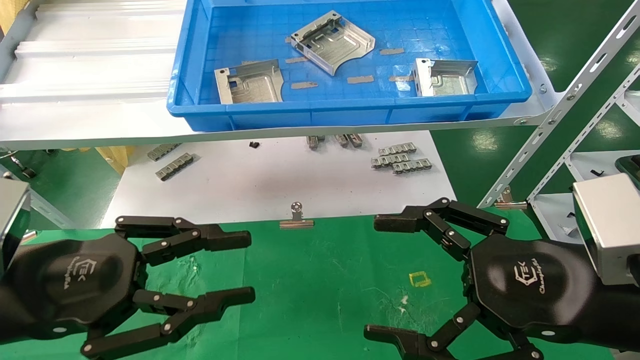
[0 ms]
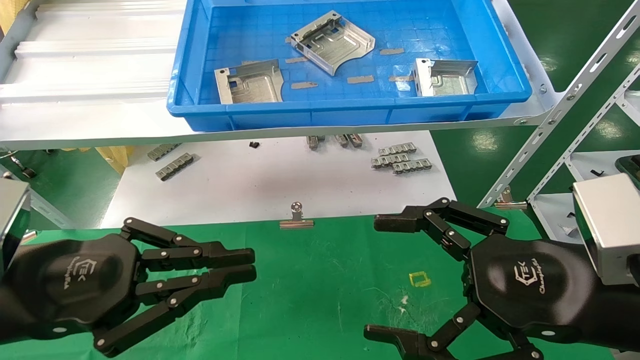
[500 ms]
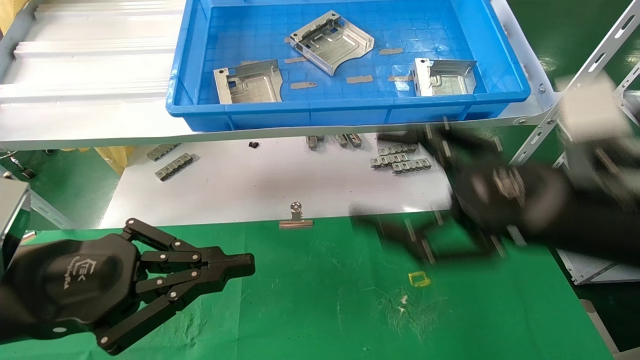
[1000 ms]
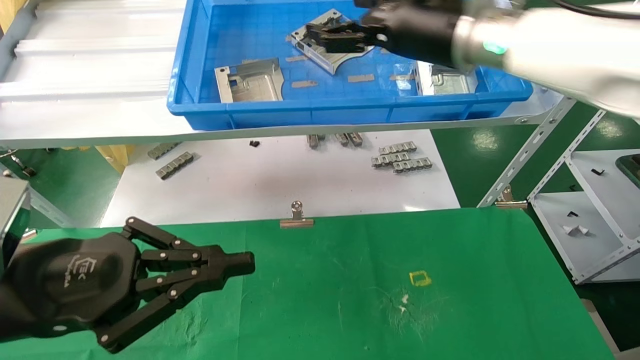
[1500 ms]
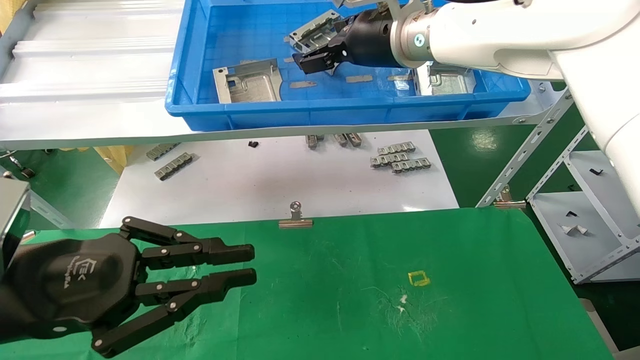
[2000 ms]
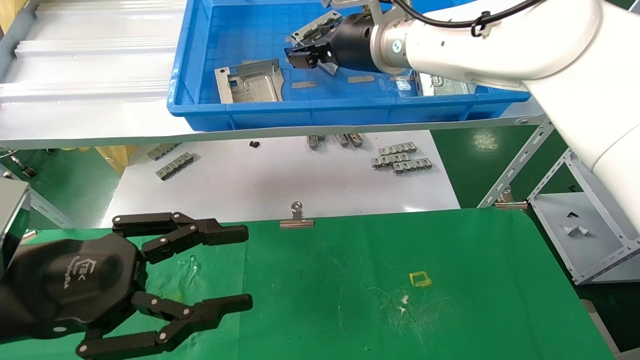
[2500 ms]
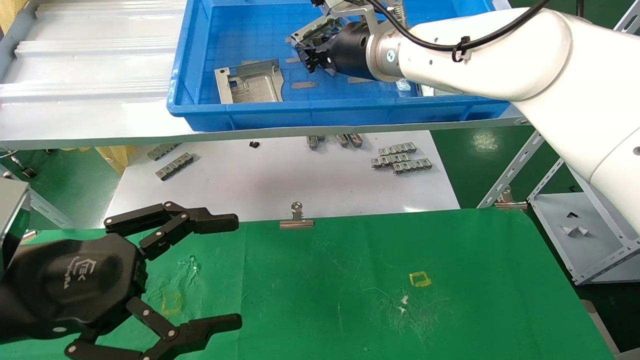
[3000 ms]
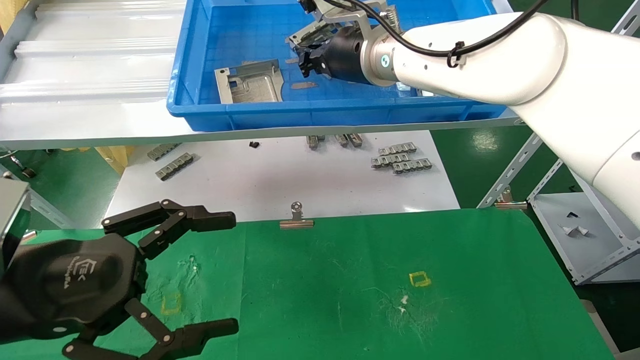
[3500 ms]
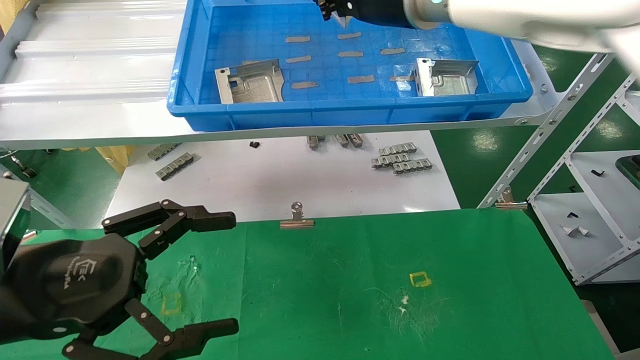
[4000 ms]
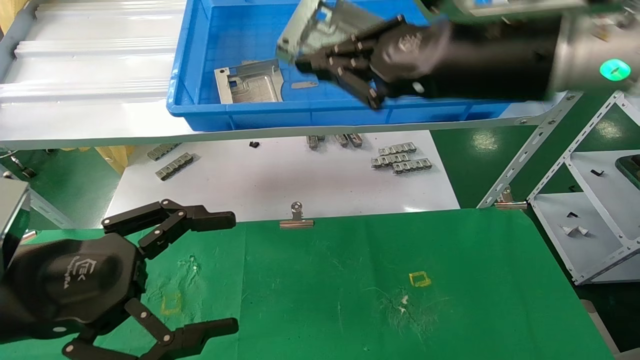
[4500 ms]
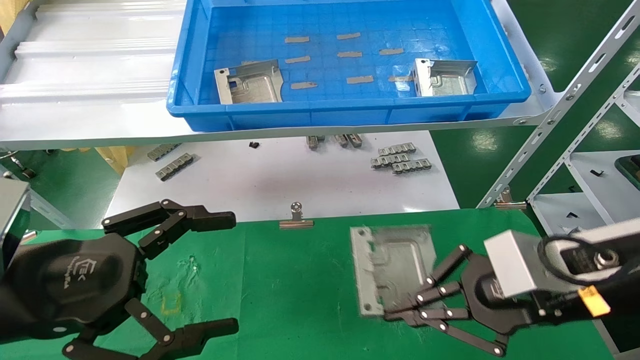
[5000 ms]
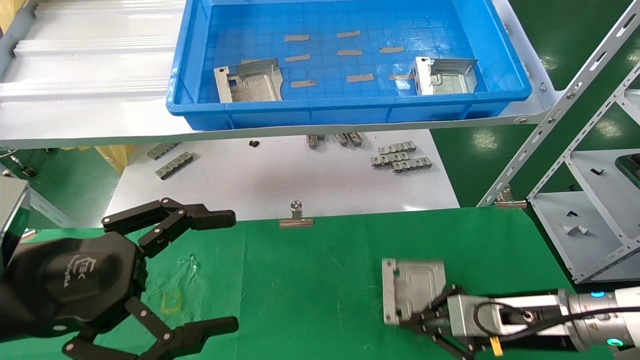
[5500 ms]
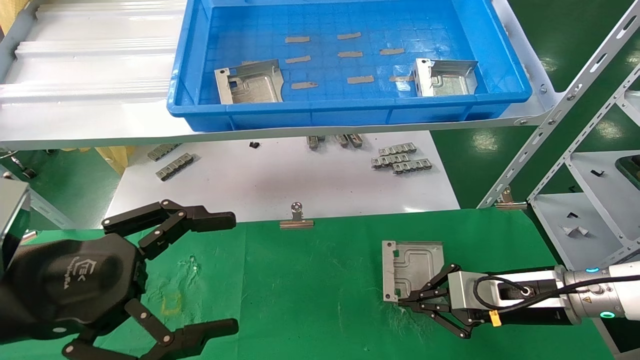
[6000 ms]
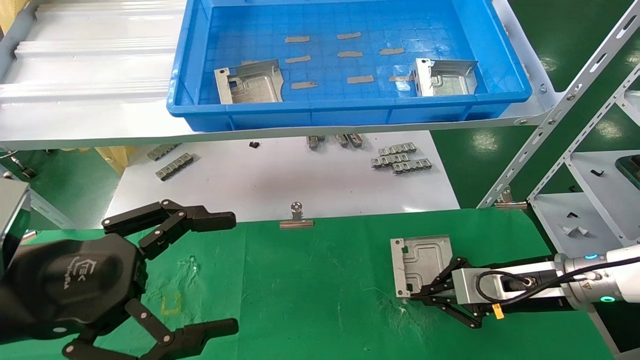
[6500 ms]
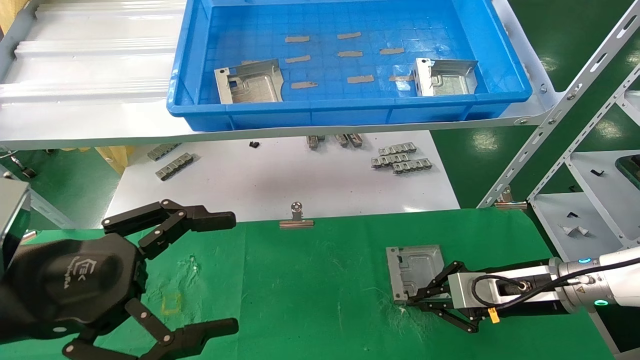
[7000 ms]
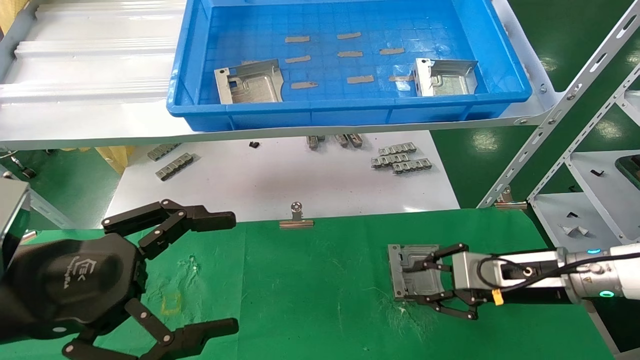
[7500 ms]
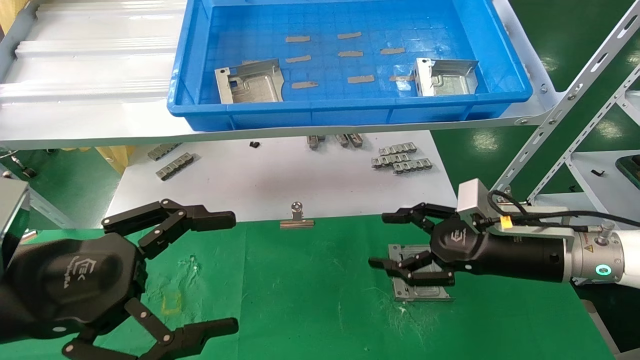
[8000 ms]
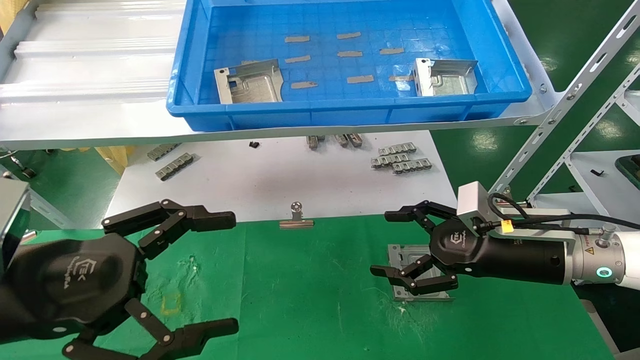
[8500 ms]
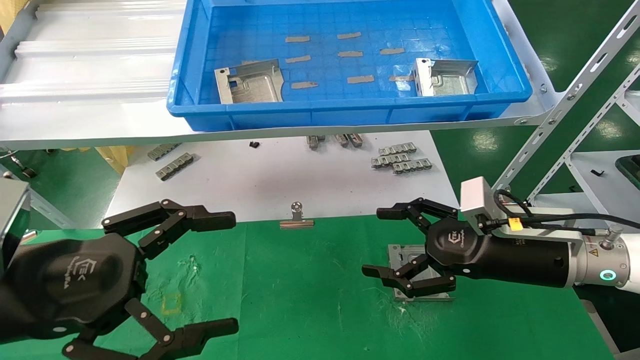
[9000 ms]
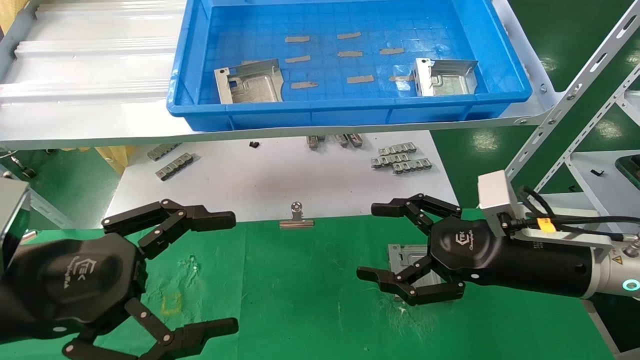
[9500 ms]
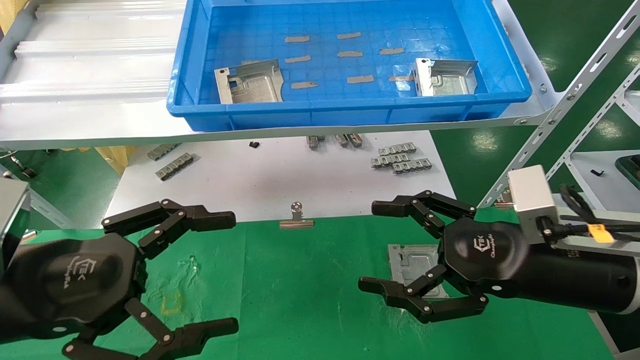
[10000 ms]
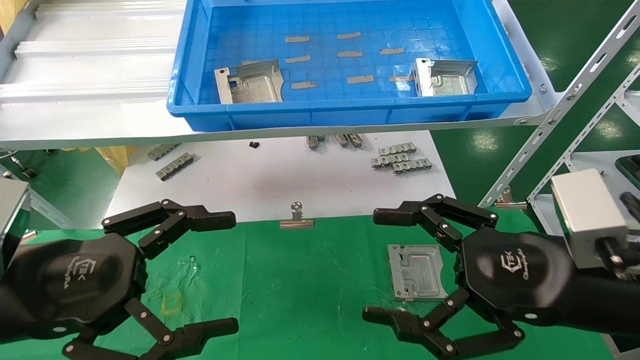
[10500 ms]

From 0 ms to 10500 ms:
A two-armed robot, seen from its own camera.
Task of the whole recording: use the mechanical arm to pick up the parts and place them on the table.
Step, from 1500 ms to 3500 ms: Pick up the hard drive bracket from the feeding area.
Step, from 4000 ms to 7500 ms: Place the hard drive bracket into the box.
From 0 ms to 2000 ms: The right gripper travels forward, upward and to the left by some 35 cm.
From 2000 ms to 4000 ms: The left gripper opens, while the right gripper closes.
From 4000 ms to 6500 ms: The right gripper travels downward and to the right by roughly 40 cm.
From 6500 ms to 8500 ms: The right gripper moves upward, roughly 5 cm, and opens up.
From 8500 ms to 10500 ms: The right gripper shifts about 15 cm backward.
